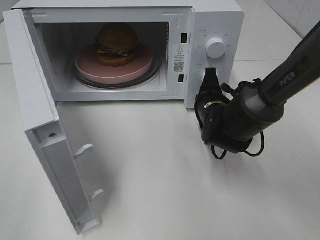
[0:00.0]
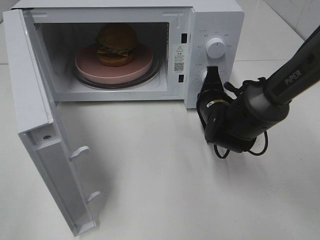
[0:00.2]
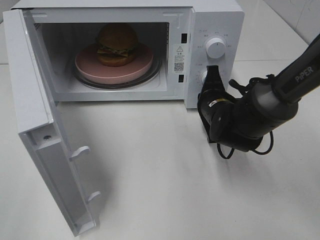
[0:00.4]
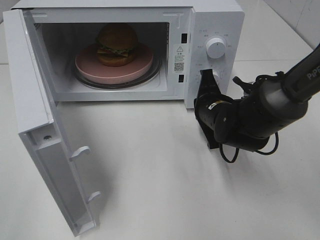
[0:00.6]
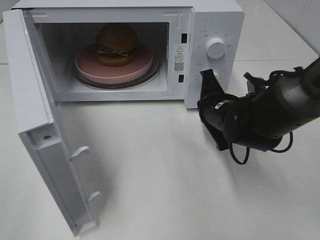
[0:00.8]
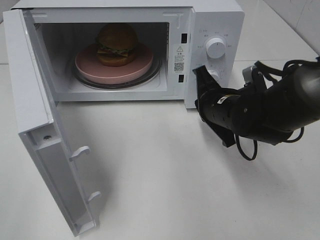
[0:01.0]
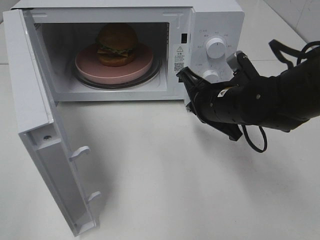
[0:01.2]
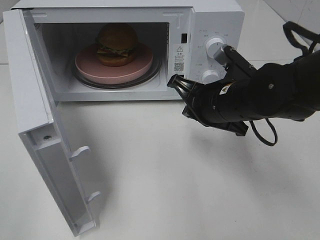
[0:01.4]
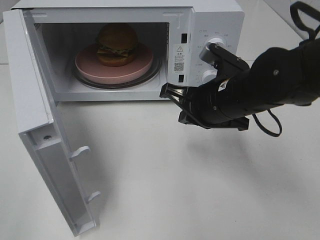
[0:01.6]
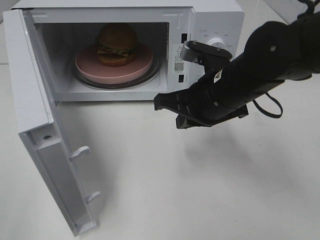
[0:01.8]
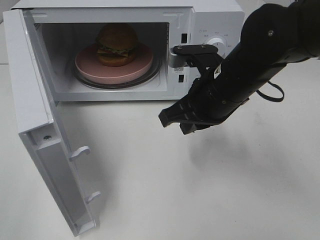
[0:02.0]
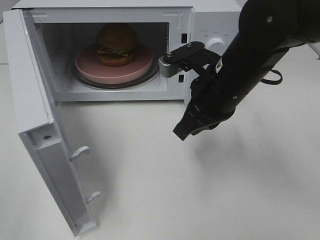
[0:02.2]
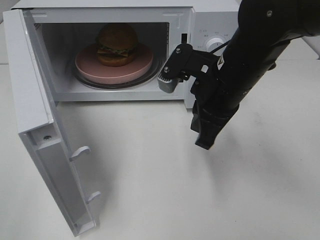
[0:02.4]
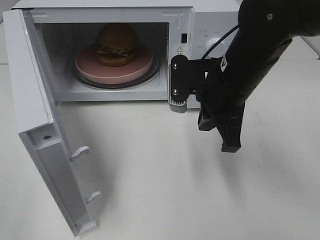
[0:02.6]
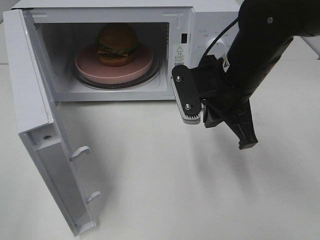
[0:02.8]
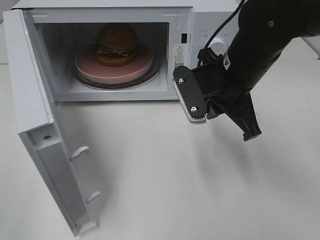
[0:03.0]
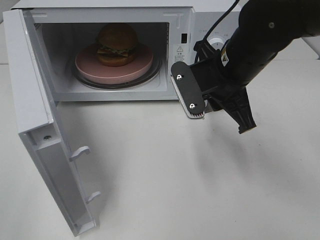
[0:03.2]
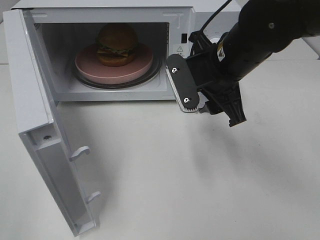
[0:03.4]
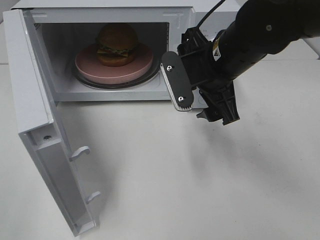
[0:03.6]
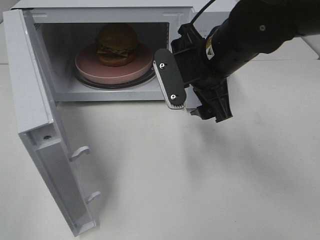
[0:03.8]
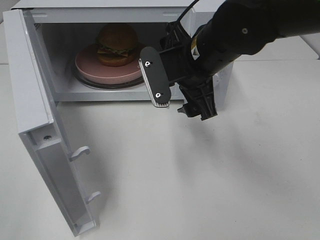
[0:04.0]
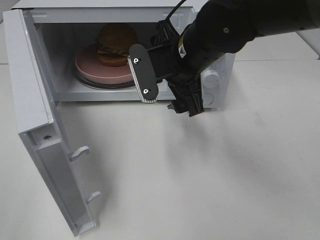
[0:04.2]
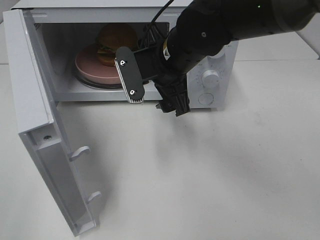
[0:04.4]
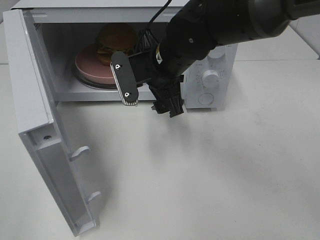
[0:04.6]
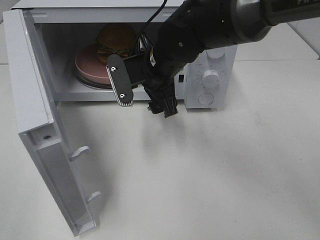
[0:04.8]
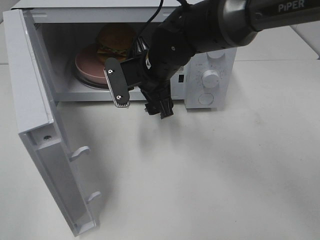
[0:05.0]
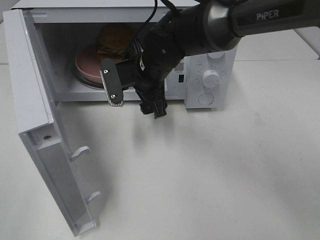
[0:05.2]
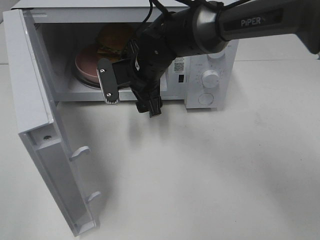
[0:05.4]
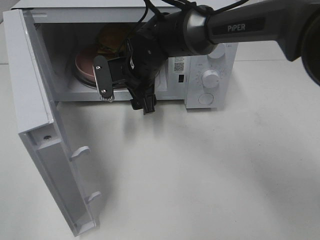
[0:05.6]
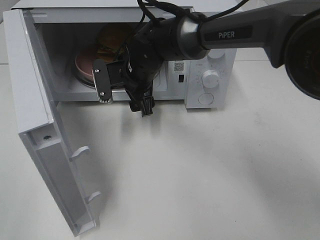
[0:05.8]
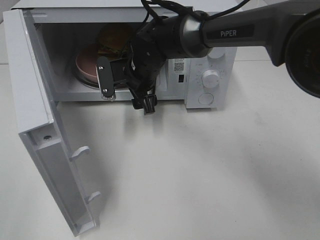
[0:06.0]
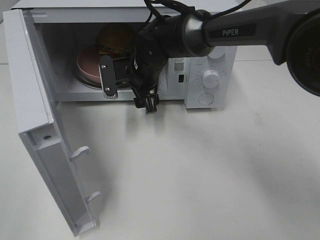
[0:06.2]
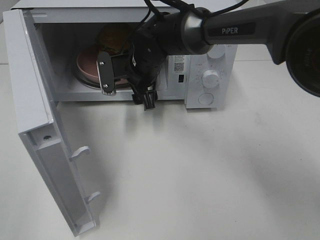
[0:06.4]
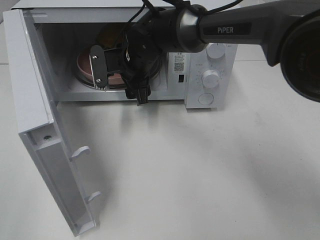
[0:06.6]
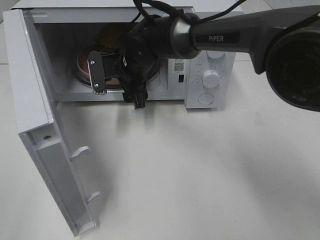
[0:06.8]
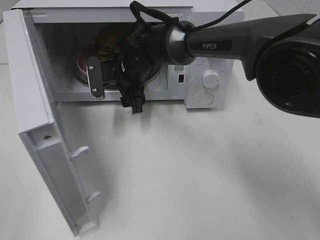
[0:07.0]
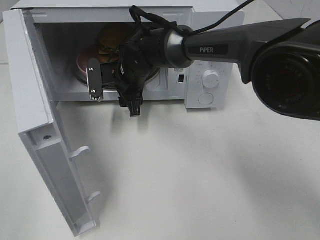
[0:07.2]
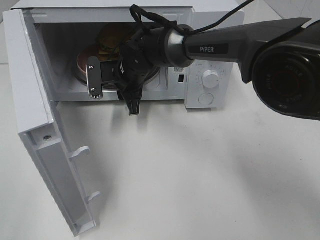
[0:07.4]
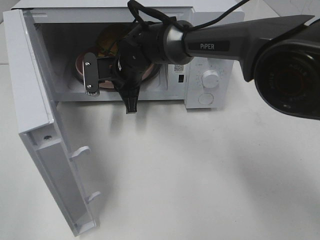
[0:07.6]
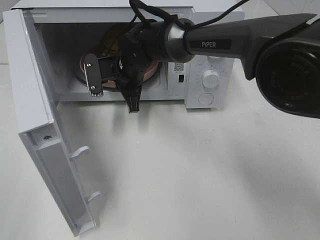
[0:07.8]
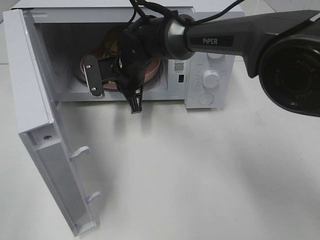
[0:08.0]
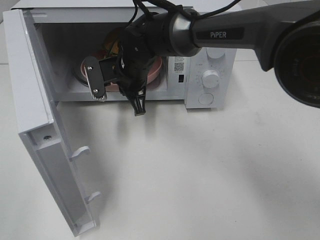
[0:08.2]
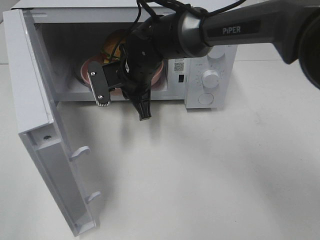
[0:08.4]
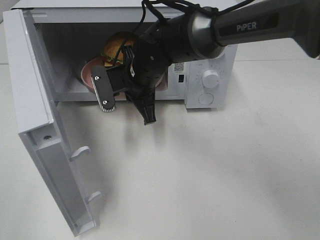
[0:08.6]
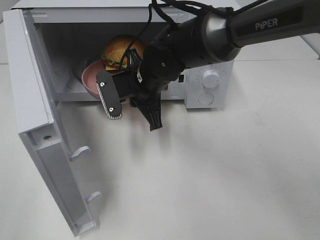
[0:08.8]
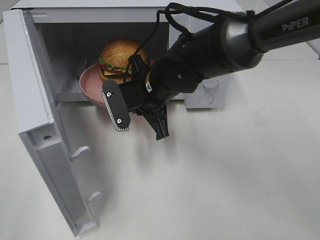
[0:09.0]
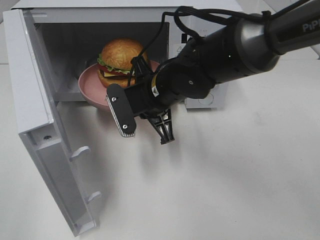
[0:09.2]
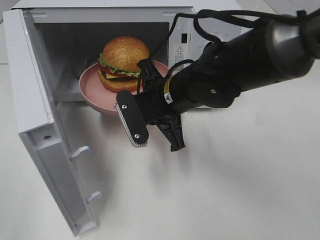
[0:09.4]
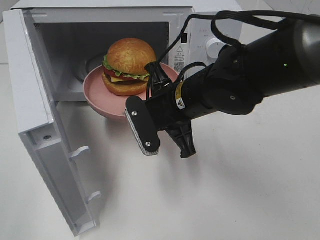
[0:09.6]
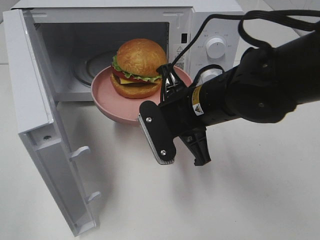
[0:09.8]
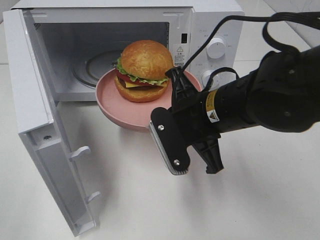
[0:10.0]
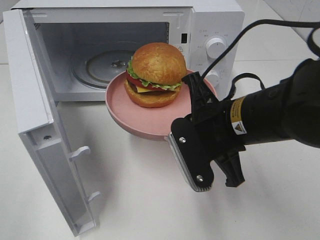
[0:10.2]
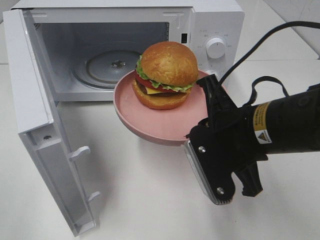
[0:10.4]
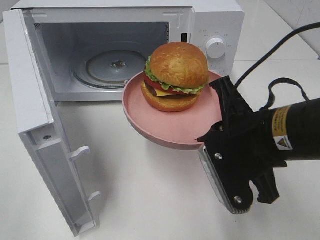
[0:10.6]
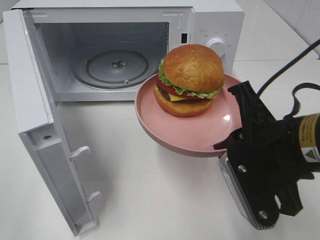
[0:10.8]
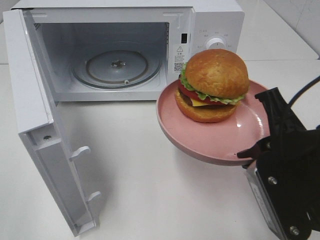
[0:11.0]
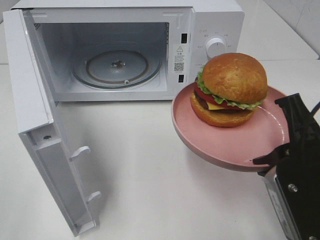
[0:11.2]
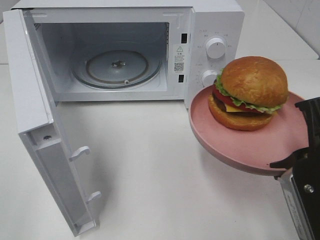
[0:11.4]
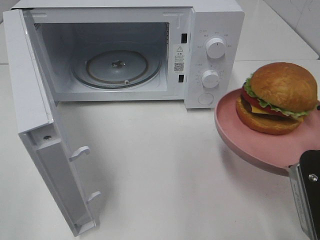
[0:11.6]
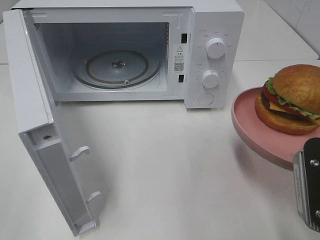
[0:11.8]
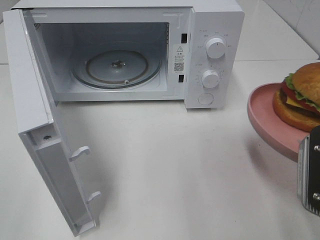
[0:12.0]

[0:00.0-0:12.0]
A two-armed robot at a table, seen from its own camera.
Task of the whole recording: Heat the burger.
Step, 0:00.8 to 0:07.6: Right hand: grab the plate with the hamburger.
0:00.0 to 0:01.6: The right gripper goes approximately 10 cm upward and backward.
0:03.0 to 0:04.4: The right gripper is displaced to the left by roughly 10 cm, and opens up.
0:04.4 to 0:06.0: The right gripper moves forward and downward, roughly 10 cm.
0:06.0 to 0:07.6: The right gripper closes up.
0:07.6 to 0:09.0: The right gripper goes some 10 cm backward and to the right.
0:09.0 to 0:10.4: The right gripper moves backward and to the right, approximately 20 cm.
0:10.4 to 0:12.0: The right gripper moves to the right and backward, roughly 15 cm.

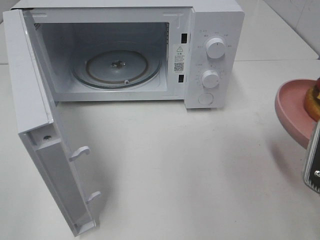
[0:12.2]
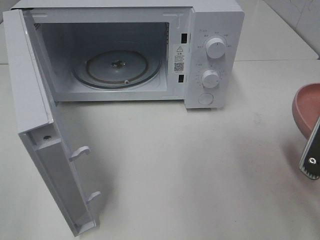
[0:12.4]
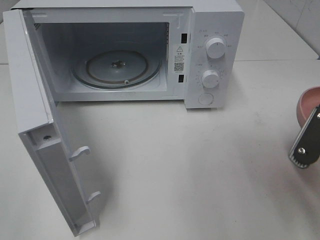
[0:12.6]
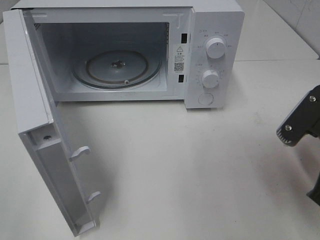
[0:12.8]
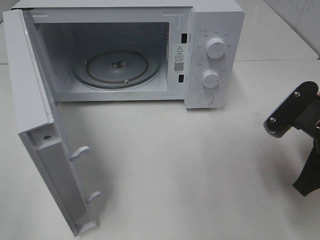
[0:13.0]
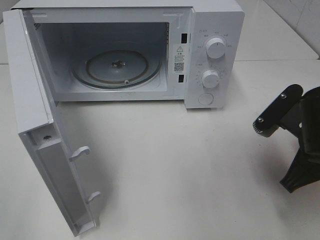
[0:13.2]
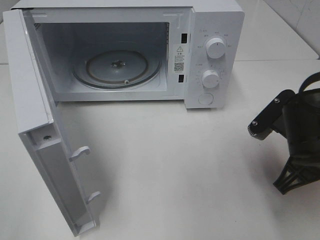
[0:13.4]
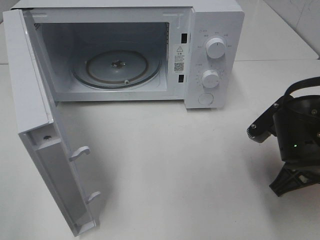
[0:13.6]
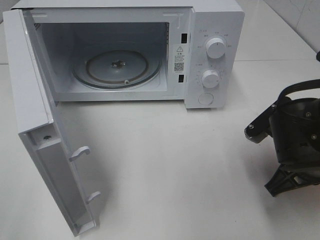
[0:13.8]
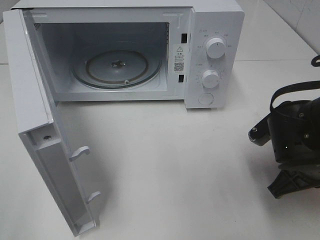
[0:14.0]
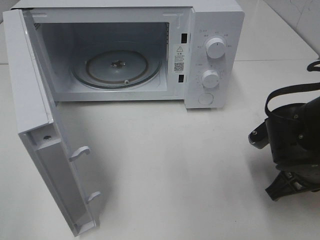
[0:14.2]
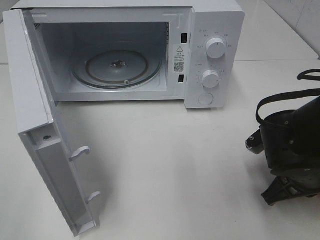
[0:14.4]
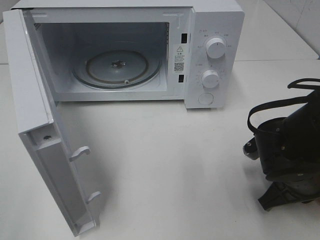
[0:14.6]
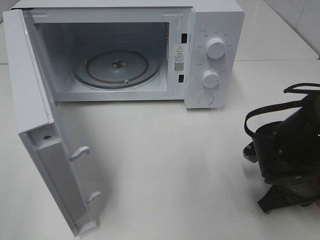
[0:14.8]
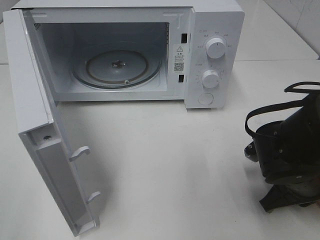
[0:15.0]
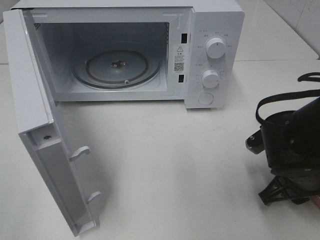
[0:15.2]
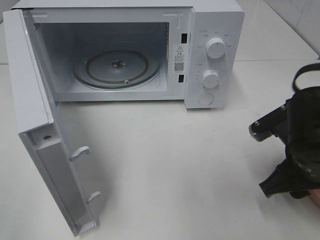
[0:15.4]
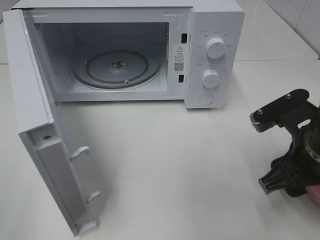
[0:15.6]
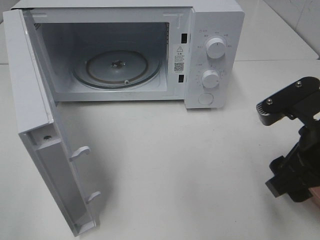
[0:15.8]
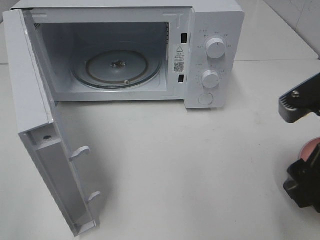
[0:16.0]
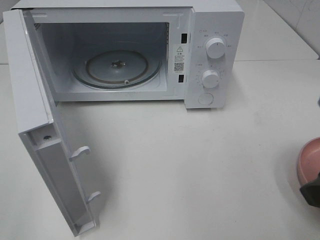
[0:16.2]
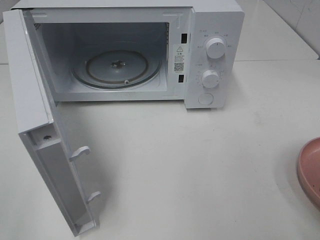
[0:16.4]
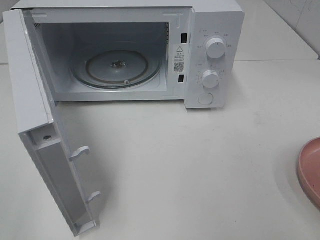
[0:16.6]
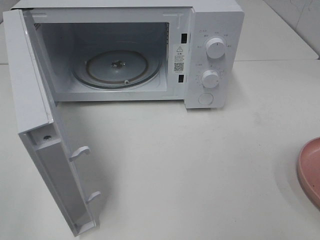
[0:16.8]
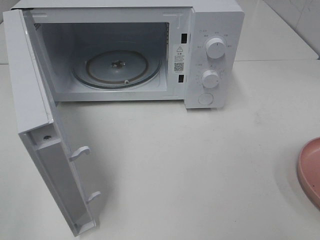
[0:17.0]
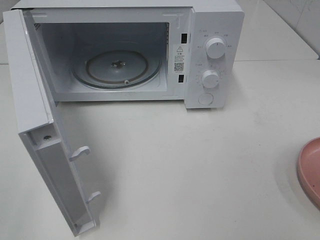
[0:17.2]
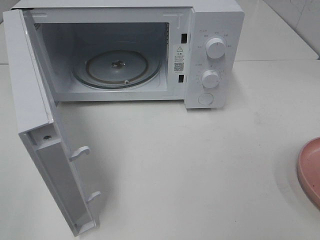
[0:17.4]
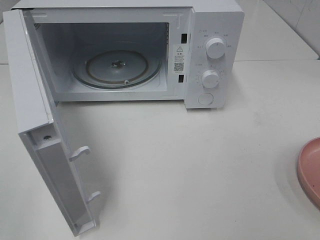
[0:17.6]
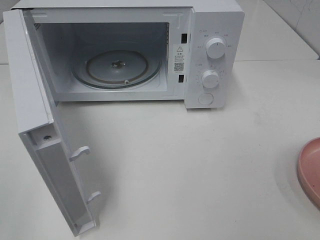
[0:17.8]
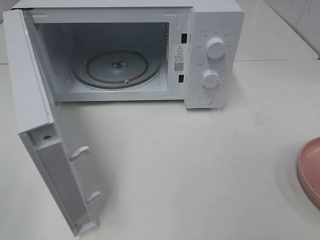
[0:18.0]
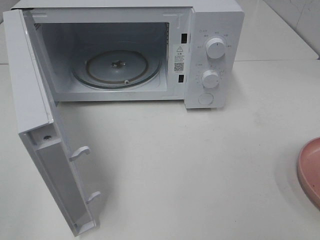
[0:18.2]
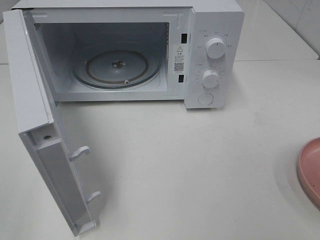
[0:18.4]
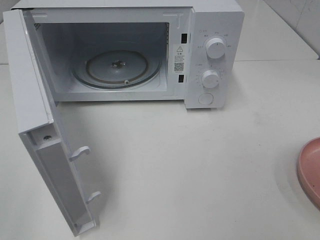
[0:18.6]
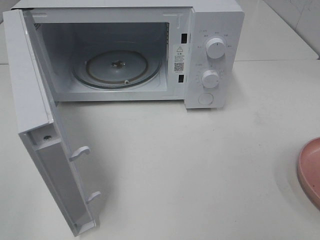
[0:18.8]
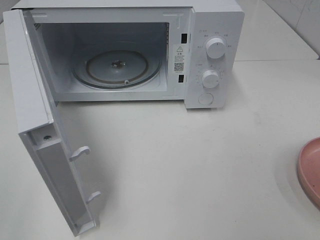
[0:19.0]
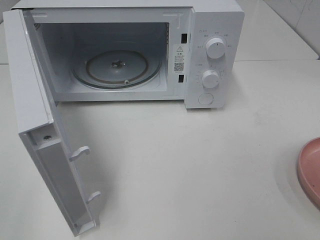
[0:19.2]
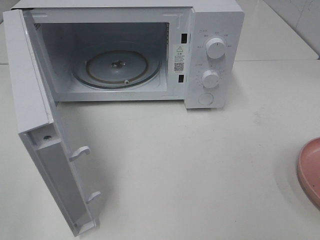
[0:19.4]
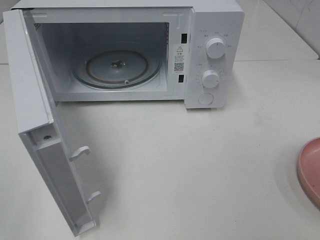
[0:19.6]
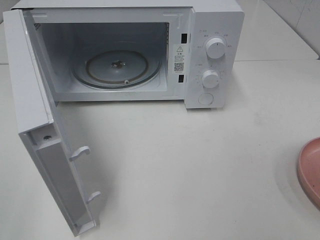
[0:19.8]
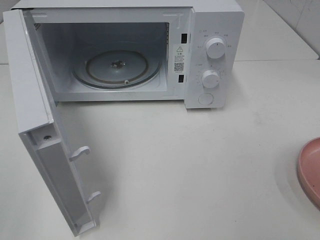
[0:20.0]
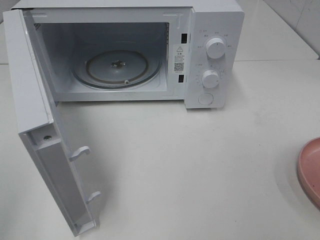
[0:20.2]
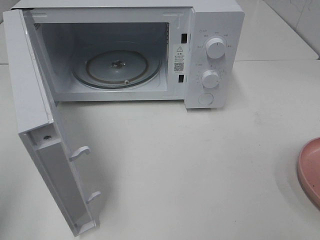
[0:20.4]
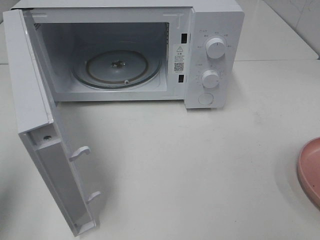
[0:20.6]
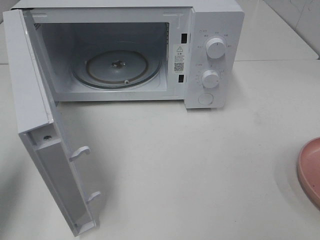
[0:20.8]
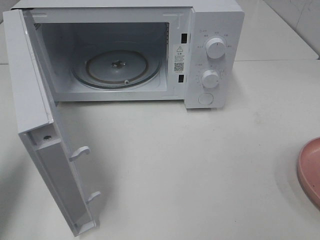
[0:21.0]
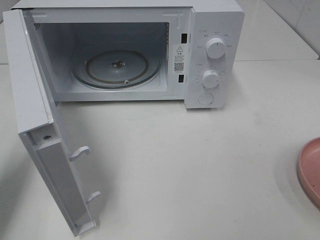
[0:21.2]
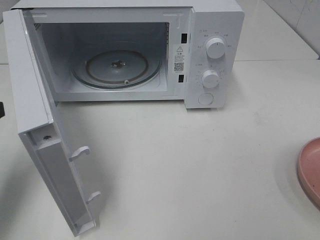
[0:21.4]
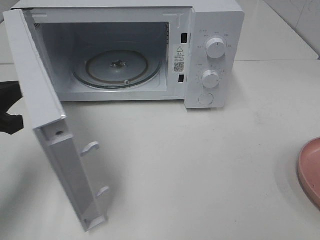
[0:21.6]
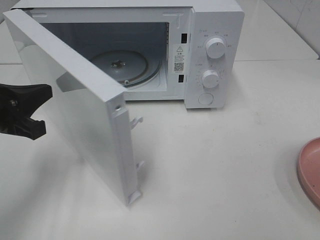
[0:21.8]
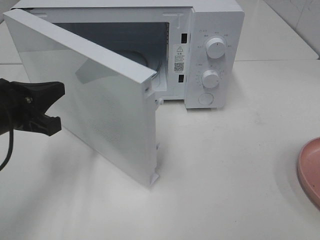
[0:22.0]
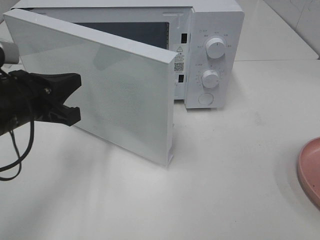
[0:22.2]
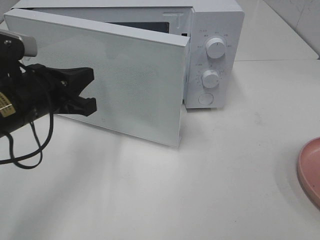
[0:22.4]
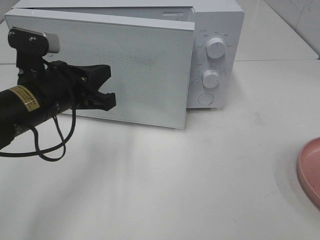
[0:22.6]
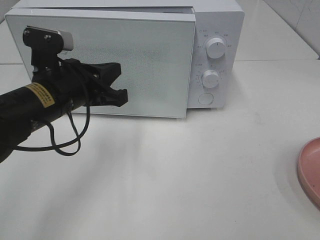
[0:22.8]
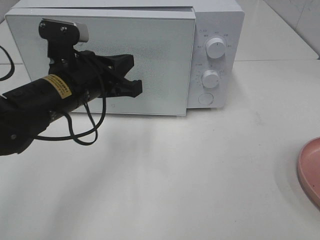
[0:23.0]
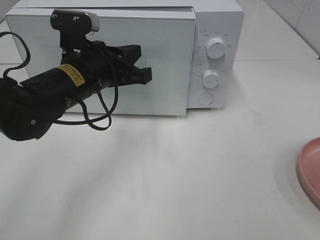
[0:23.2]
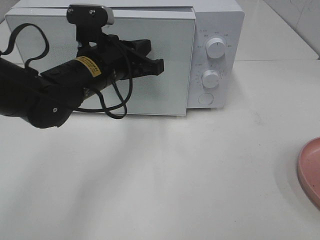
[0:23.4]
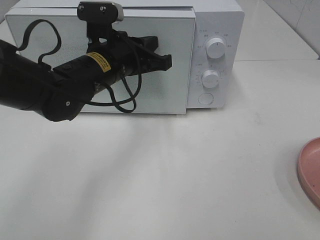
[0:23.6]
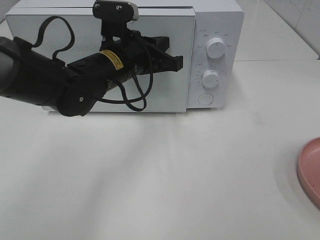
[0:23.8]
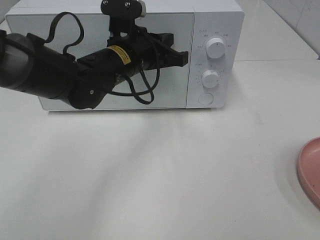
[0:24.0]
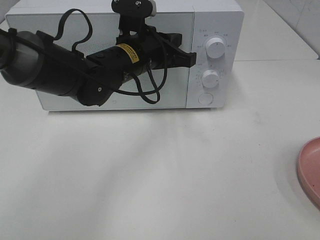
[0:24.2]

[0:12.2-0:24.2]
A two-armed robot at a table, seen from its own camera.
Task of the whole recording: Heat the burger.
Step, 0:12.2 to 0:15.2: Right hand: place the plate on the table.
0:12.2 to 0:13.8: The right gripper heads forward and downward, covering roughly 10 cm.
0:13.8 to 0:15.2: The right gripper opens its fingers.
0:15.2 to 0:16.6: The right gripper is displaced upward and backward by about 25 cm.
0:18.2 to 0:19.8: The two grippers keep their place.
0:19.8 to 0:21.2: The left gripper shifts approximately 20 cm forward, and closes up.
0:21.2 to 0:22.6: The left gripper moves to the right, approximately 15 cm.
0:22.6 to 0:24.2: The left gripper is displaced to the right and forward by roughly 15 cm.
